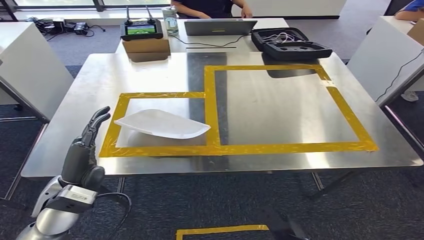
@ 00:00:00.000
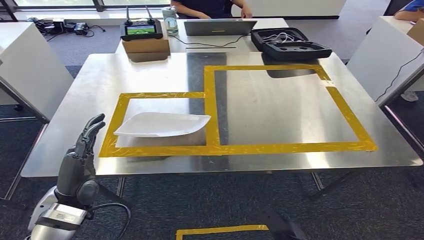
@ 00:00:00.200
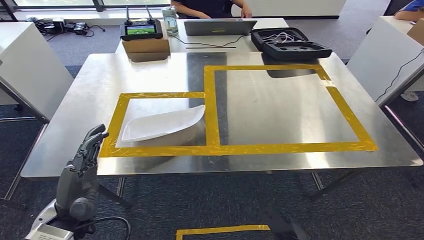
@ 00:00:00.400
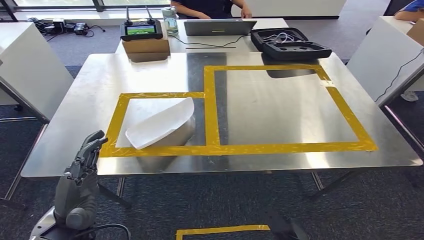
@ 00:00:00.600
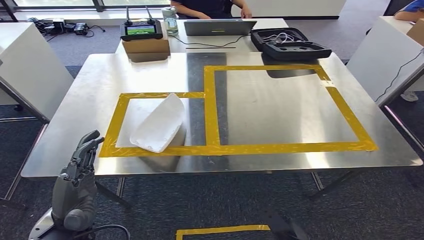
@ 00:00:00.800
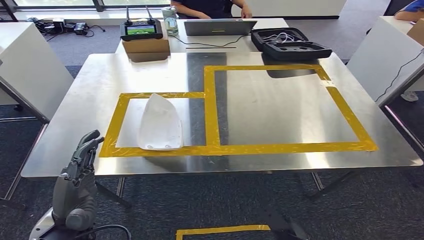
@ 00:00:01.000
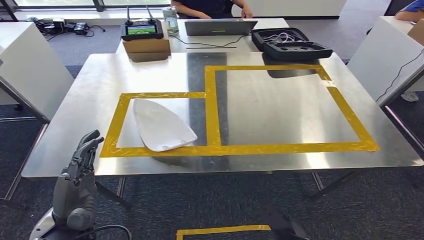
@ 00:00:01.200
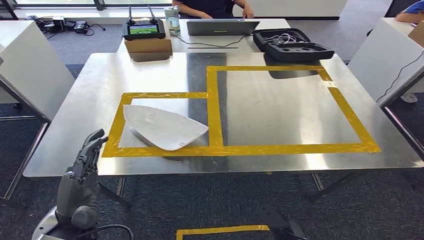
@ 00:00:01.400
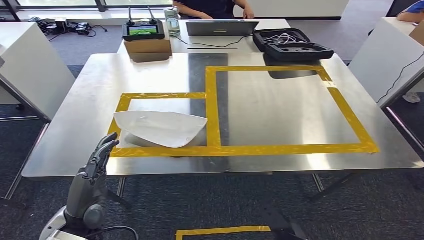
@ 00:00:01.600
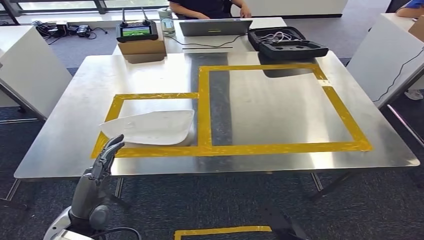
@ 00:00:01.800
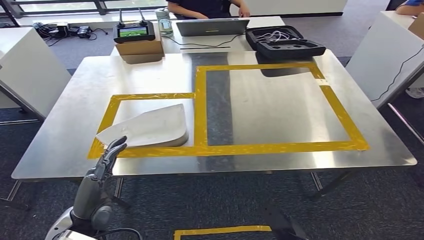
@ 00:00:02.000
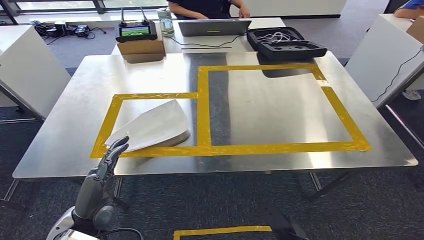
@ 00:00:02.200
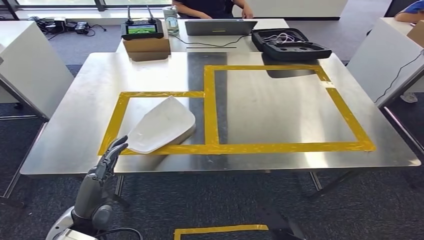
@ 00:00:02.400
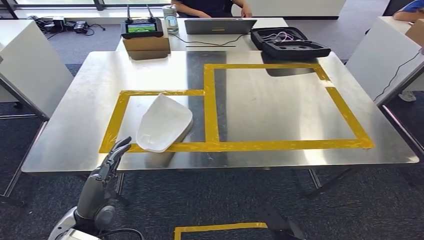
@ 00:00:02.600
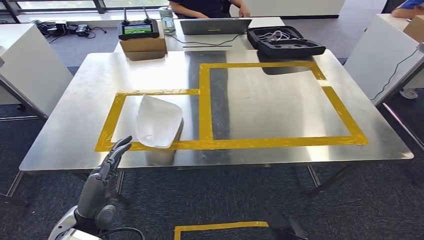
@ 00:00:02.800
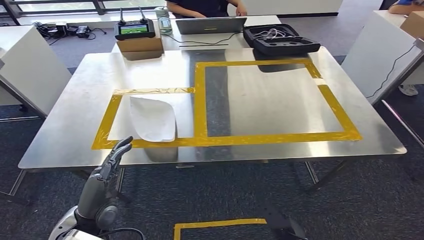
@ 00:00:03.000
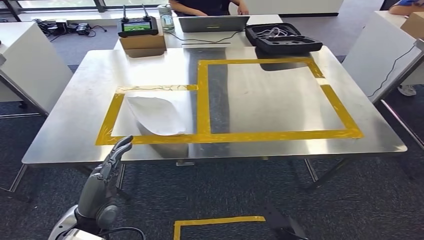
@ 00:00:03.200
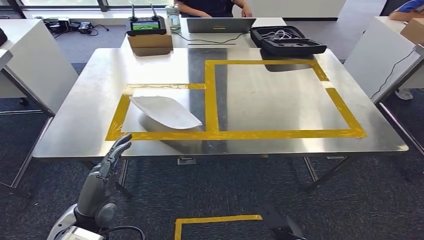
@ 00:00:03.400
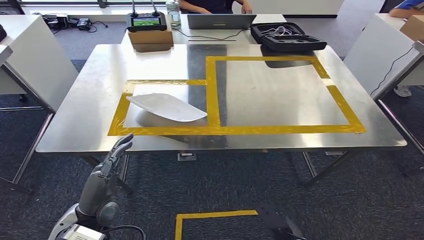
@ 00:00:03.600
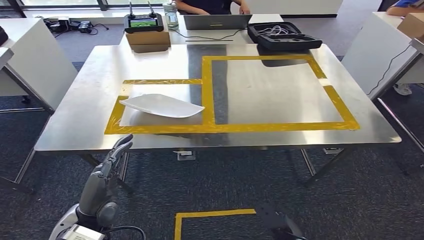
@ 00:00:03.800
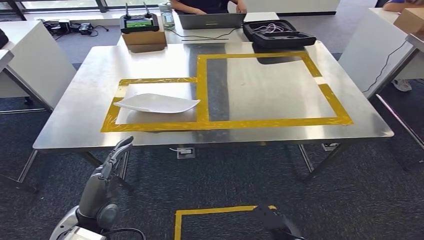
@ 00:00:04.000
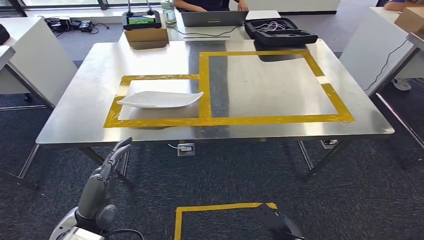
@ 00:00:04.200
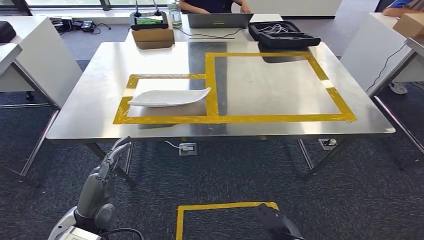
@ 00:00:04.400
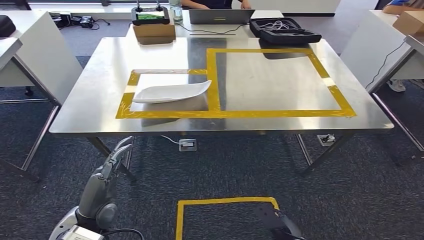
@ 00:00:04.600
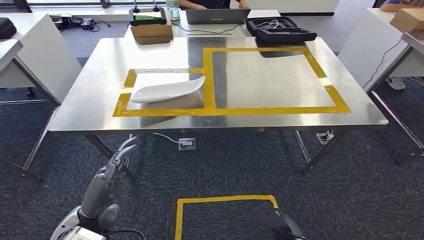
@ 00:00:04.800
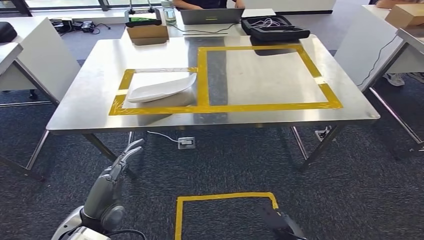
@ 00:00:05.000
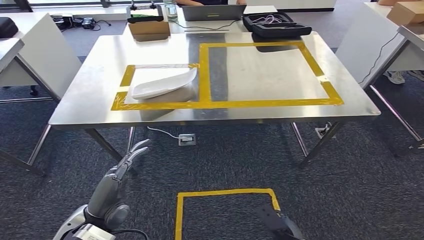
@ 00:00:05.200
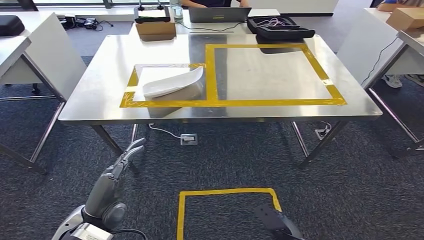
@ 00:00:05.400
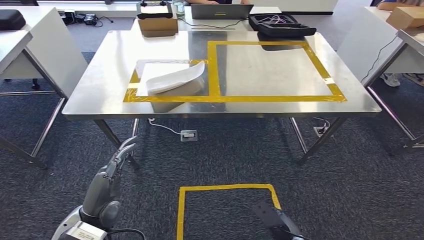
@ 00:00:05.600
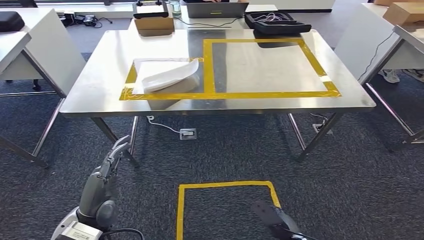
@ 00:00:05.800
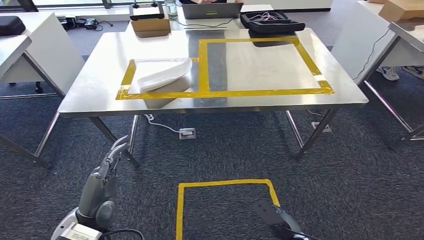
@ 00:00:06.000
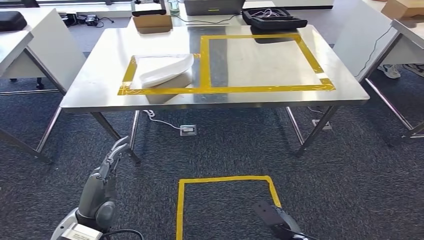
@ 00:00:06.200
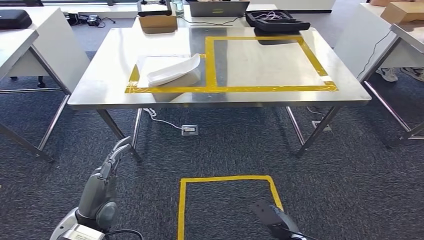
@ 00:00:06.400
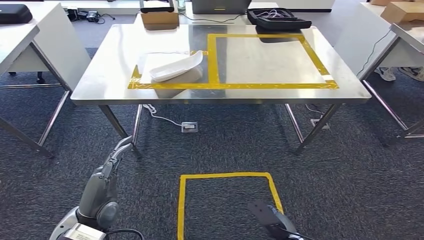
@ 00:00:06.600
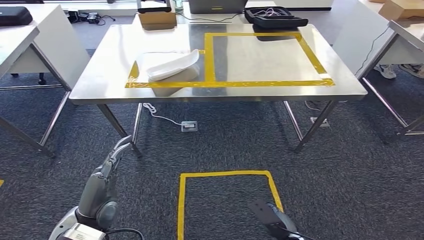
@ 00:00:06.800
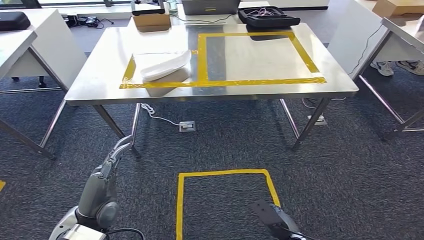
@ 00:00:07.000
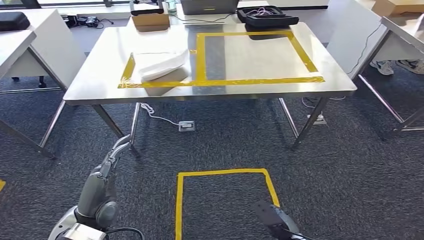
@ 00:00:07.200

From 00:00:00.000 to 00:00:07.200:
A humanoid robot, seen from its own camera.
Step, from 00:00:00.000 to 00:00:03.000: Insert the small parts into the corresponding holes on the workbench.
Step, from 00:00:03.600 to 00:00:07.000: Move to the initial position of the workbench.
From 00:00:00.000 to 00:00:01.400: The left hand heads backward, covering about 5 cm.
